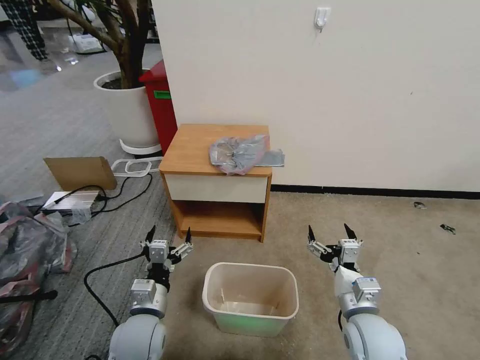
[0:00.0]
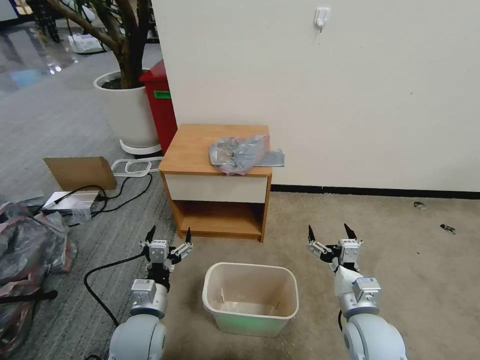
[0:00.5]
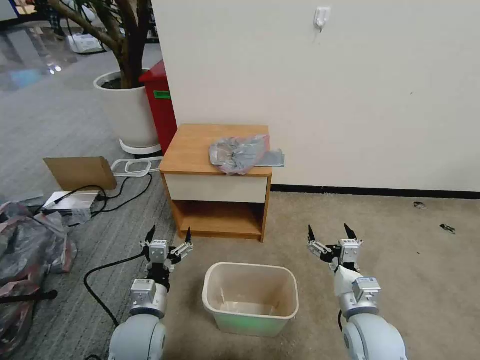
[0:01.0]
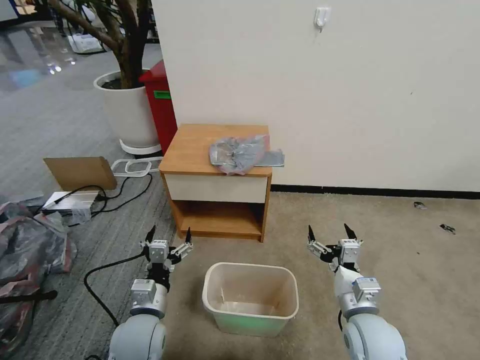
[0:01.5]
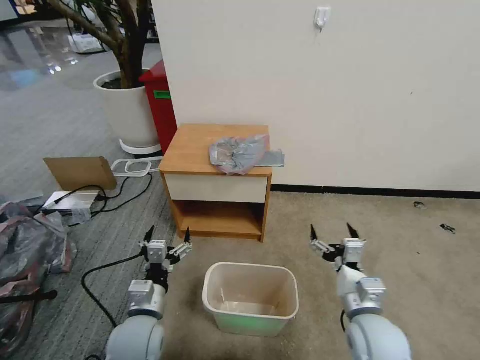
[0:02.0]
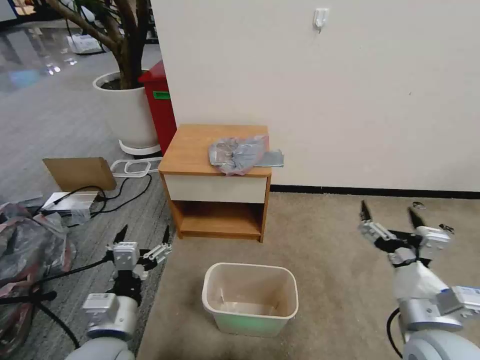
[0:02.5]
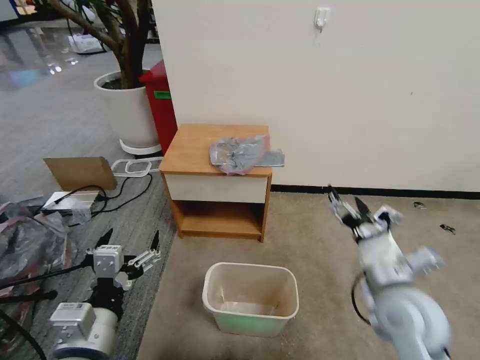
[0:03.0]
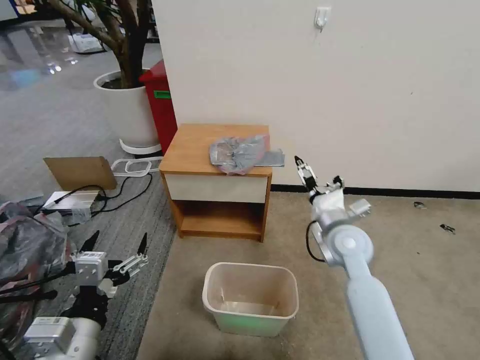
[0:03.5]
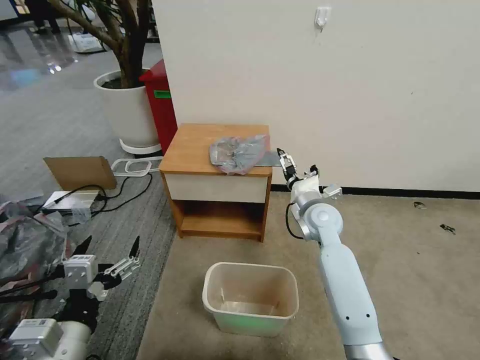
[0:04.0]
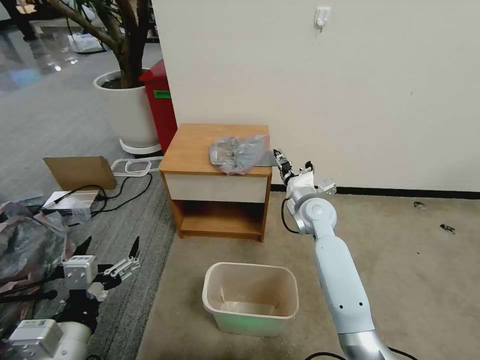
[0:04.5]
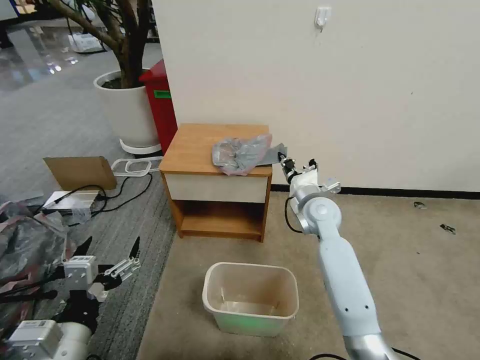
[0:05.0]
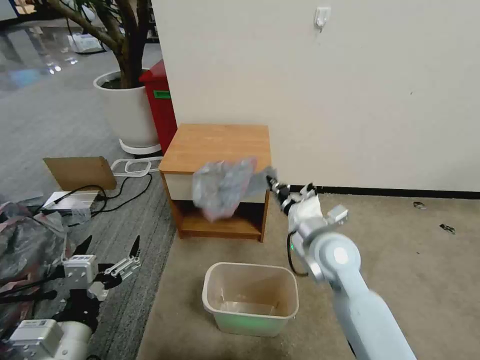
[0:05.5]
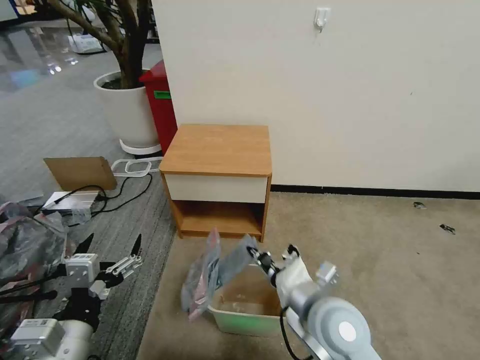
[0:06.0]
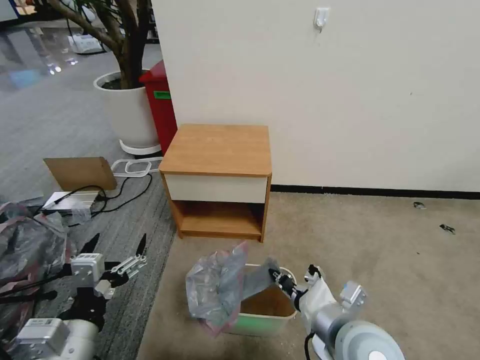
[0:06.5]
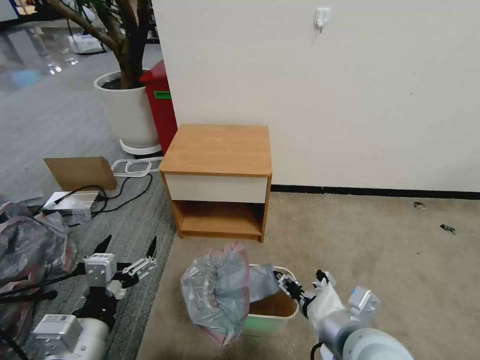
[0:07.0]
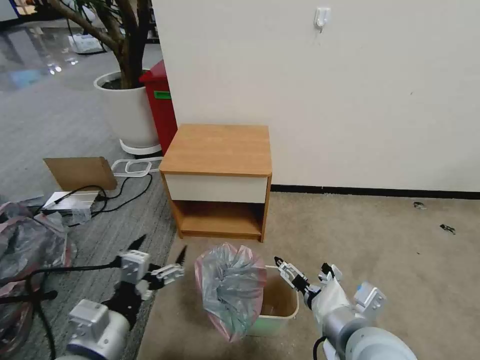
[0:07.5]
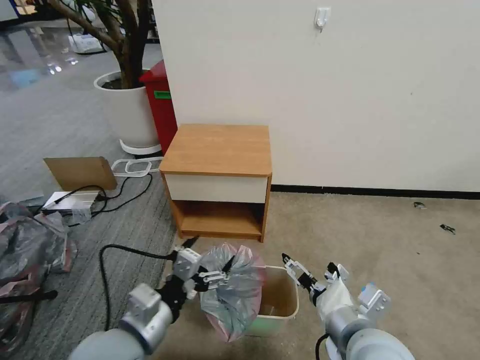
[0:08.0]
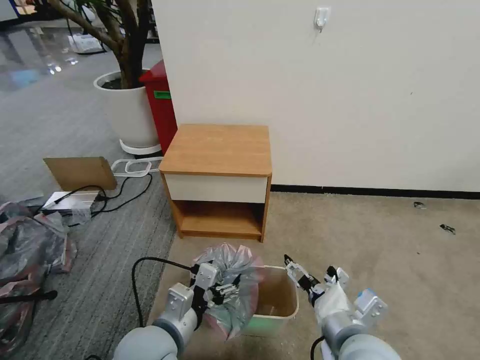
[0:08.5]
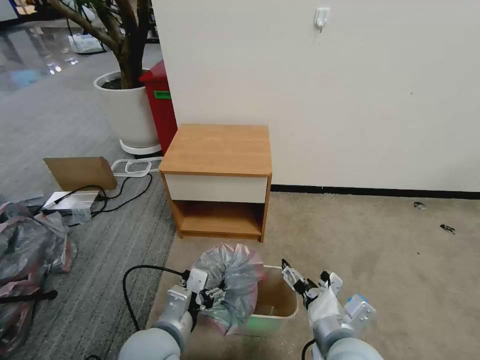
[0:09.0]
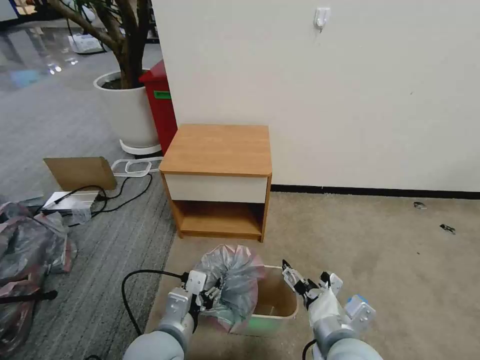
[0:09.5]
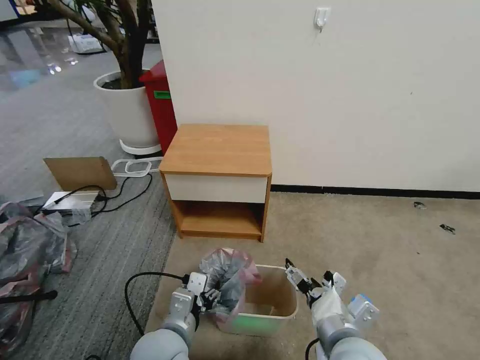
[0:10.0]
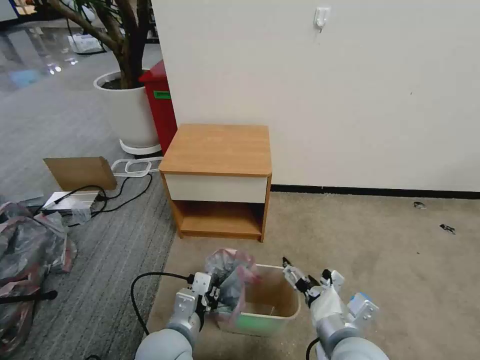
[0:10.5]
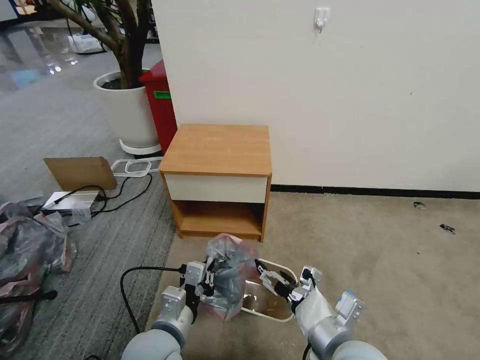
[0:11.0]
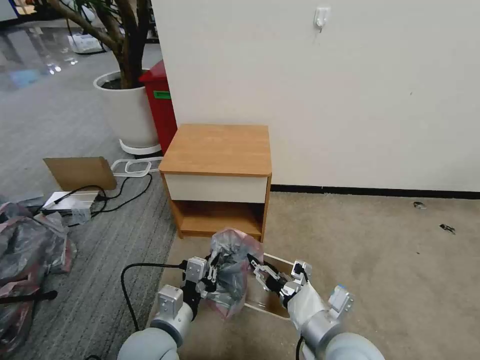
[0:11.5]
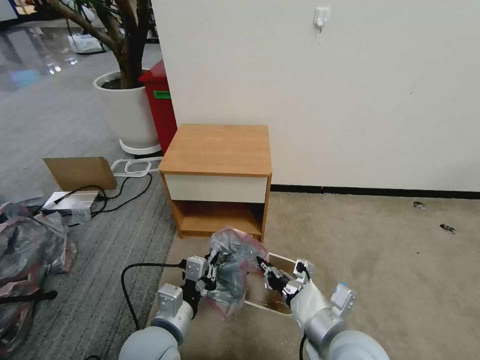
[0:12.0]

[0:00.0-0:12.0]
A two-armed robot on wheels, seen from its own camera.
Task of the whole recording: Pick up the garbage bag from the table and place it over the trash can.
0:02.0 to 0:04.0: The left gripper moves upward, backward and to the left, about 20 cm. The right gripper heads forward, covering about 25 cm.
0:04.0 to 0:06.0: The right gripper travels backward by some 25 cm, and closes up.
0:06.0 to 0:08.0: The right gripper is displaced backward by roughly 5 cm, and opens its fingers. The left gripper travels to the right and forward by roughly 10 cm.
0:08.0 to 0:10.0: The left gripper shifts roughly 10 cm downward and to the right.
0:10.0 to 0:12.0: The right gripper closes up. Meanwhile the left gripper closes.

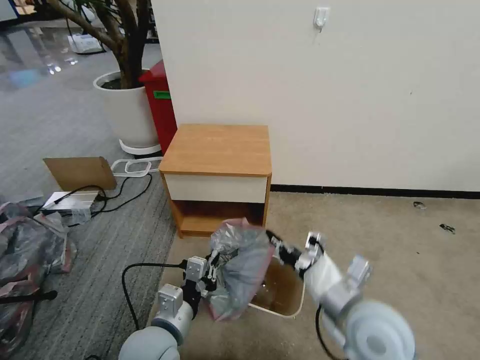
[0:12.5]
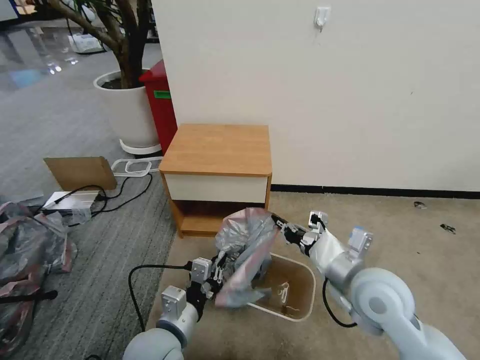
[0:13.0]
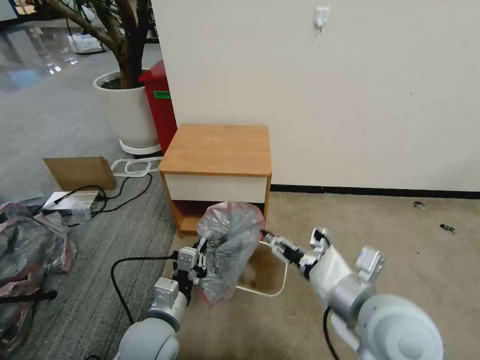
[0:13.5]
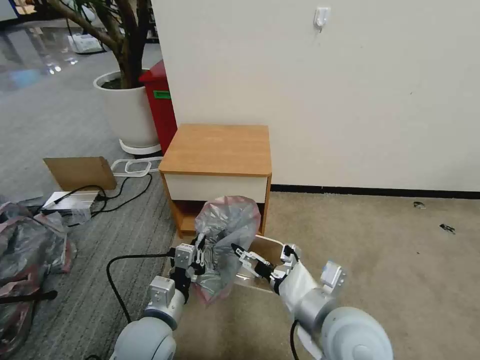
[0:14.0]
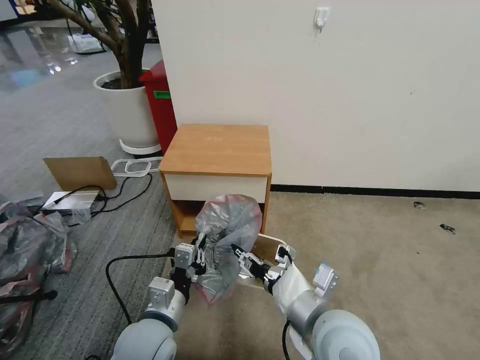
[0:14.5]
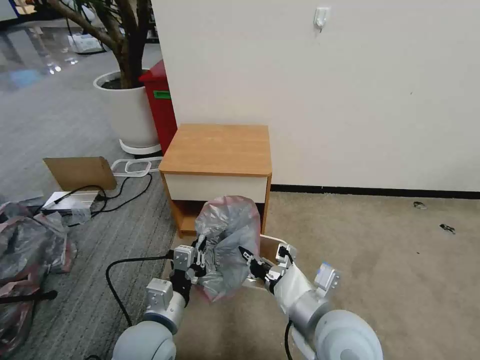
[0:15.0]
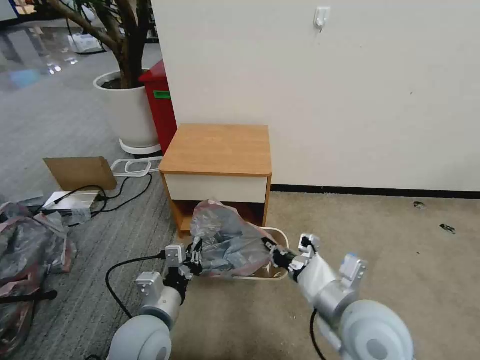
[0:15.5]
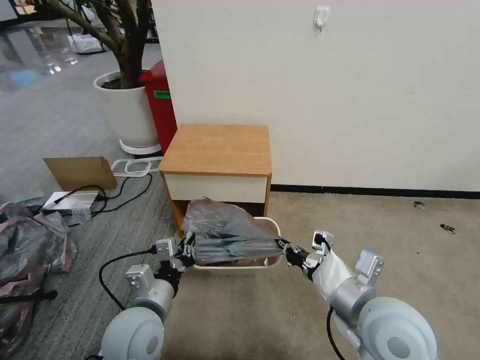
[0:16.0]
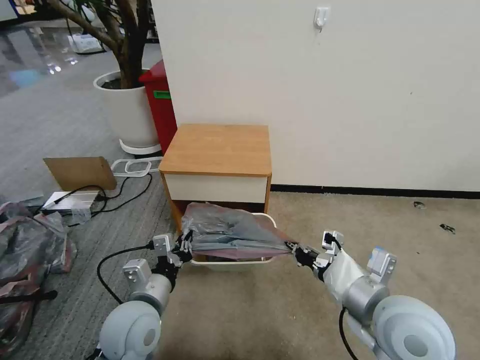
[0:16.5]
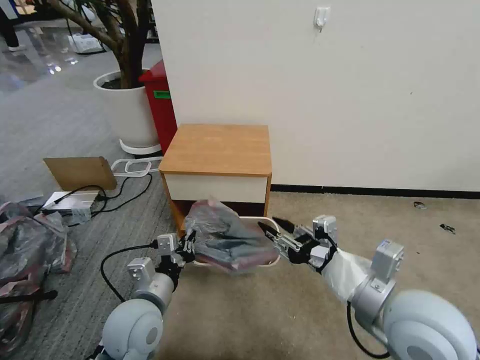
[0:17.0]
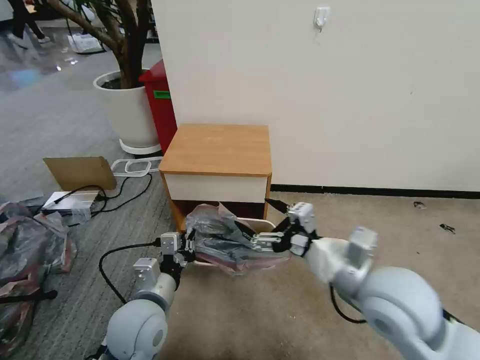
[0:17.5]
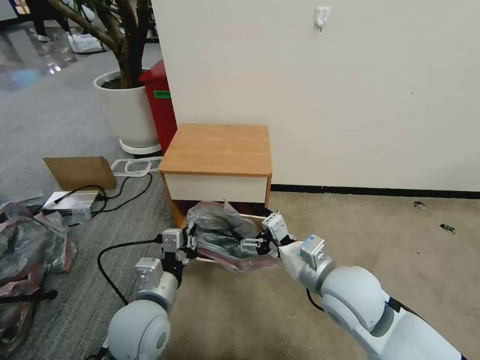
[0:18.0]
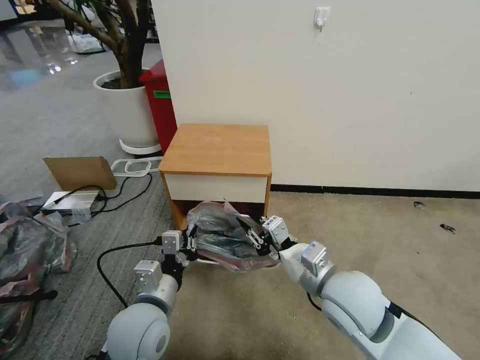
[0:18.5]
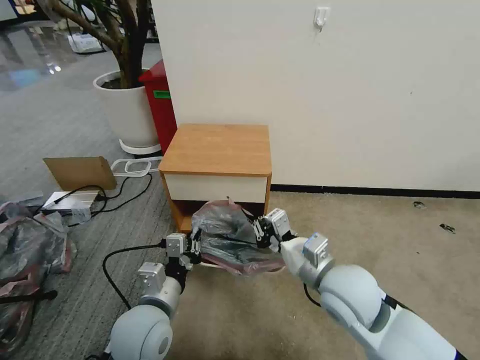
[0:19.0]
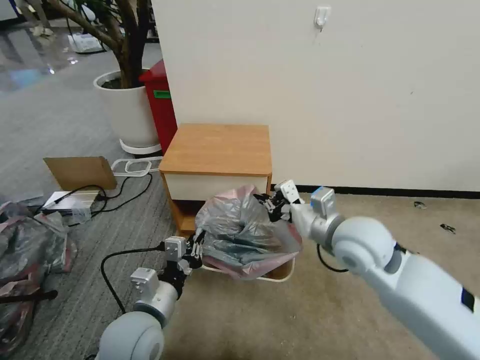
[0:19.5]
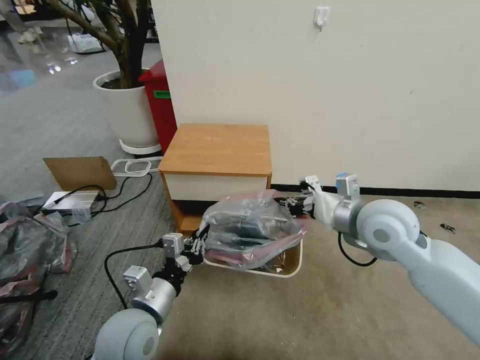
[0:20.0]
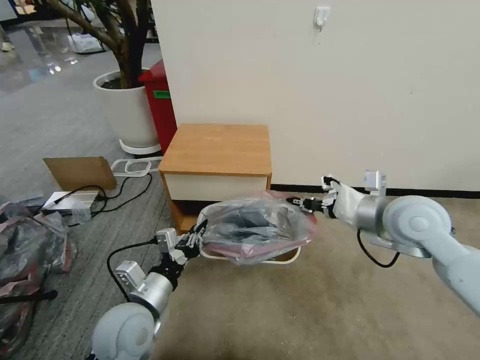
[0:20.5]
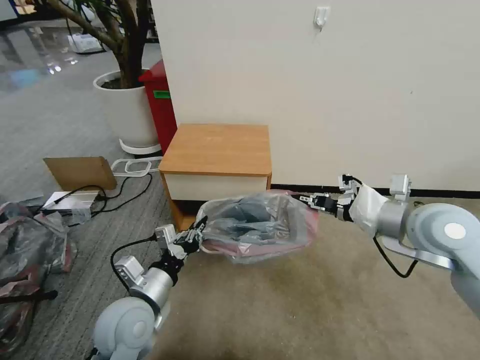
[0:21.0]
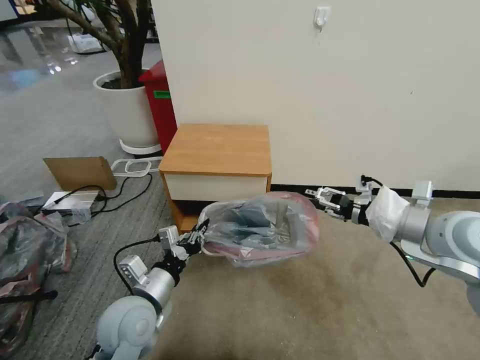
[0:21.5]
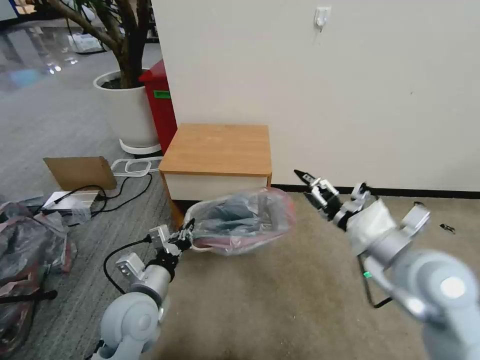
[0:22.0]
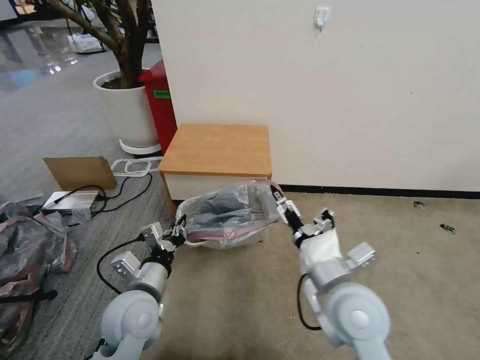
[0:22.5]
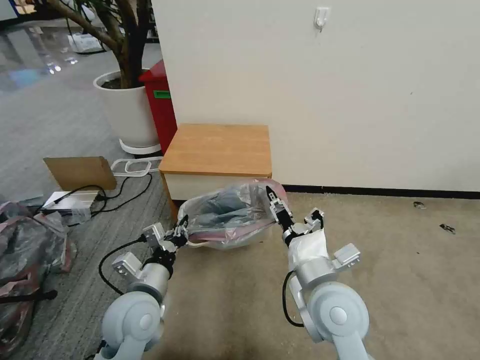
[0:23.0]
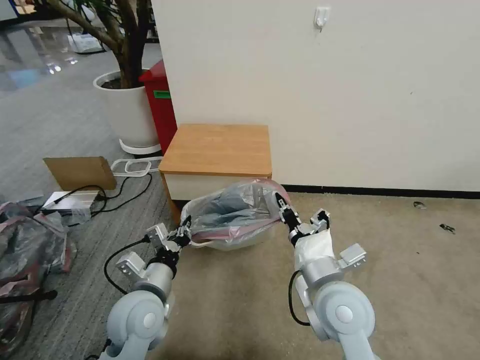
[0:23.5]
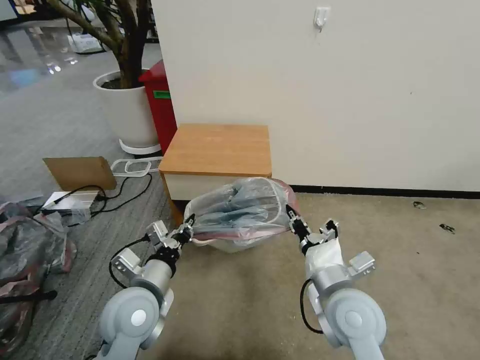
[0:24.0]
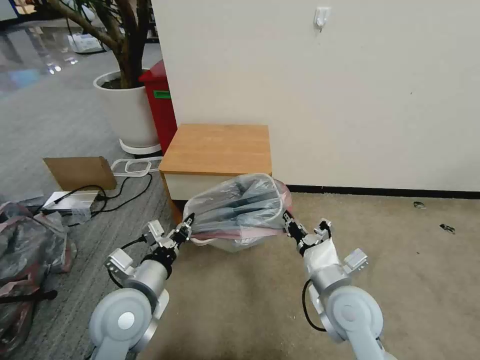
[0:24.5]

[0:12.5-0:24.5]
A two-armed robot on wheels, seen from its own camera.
Task of the whole recording: Pick up the garbage bag from the table and place it over the trash can.
0:12.5 to 0:14.5: The right gripper heads to the left, covering about 5 cm, and opens its fingers.
0:14.5 to 0:16.5: The right gripper moves to the right, some 10 cm, and closes up.
0:16.5 to 0:18.5: The right gripper heads to the left and forward, covering some 10 cm, and opens its fingers.
0:18.5 to 0:20.5: The right gripper moves to the right, forward and upward, roughly 20 cm, and closes.
0:20.5 to 0:22.5: The right gripper shifts roughly 20 cm to the left, backward and downward, and opens its fingers.
0:22.5 to 0:24.5: The right gripper goes about 5 cm downward, and closes its fingers.

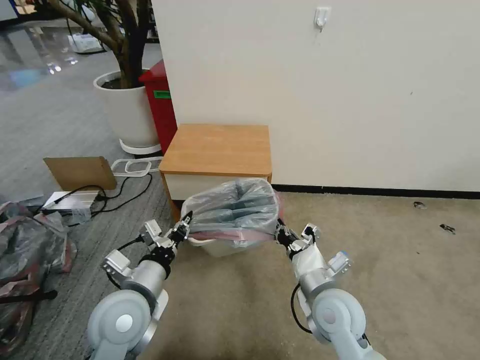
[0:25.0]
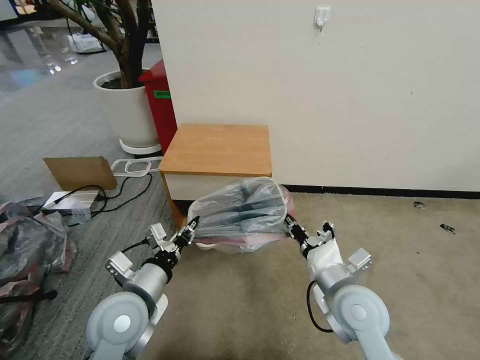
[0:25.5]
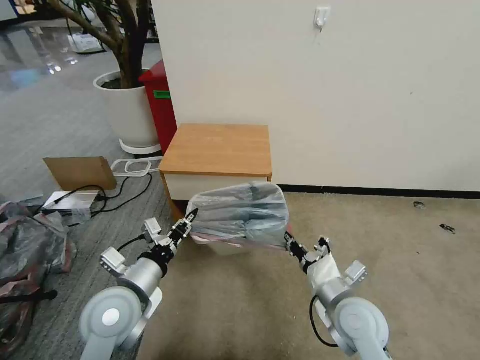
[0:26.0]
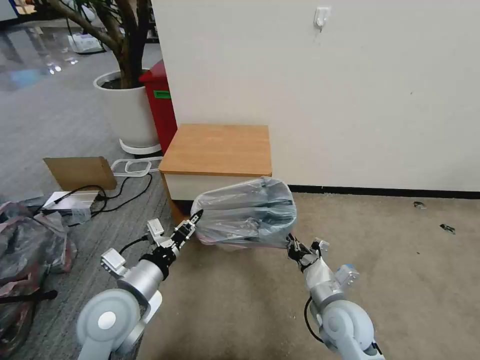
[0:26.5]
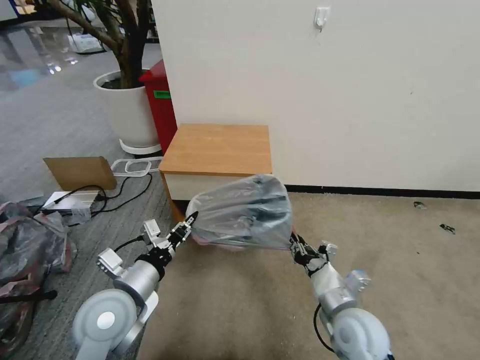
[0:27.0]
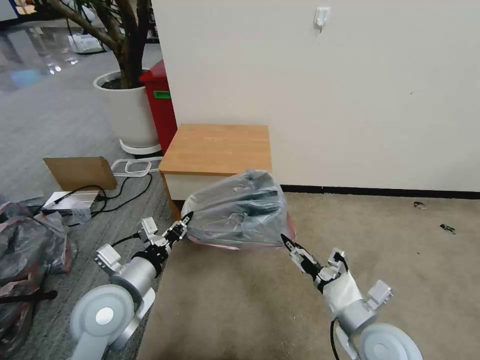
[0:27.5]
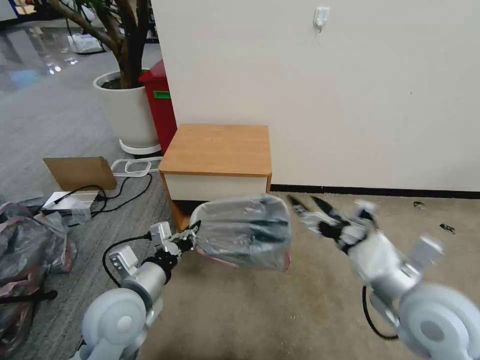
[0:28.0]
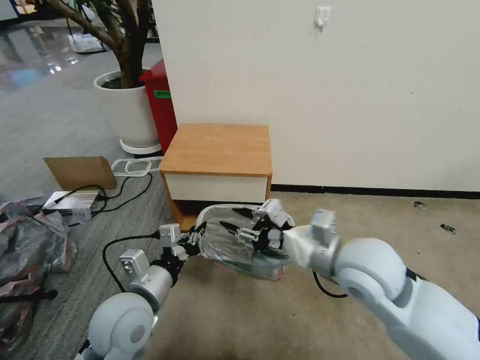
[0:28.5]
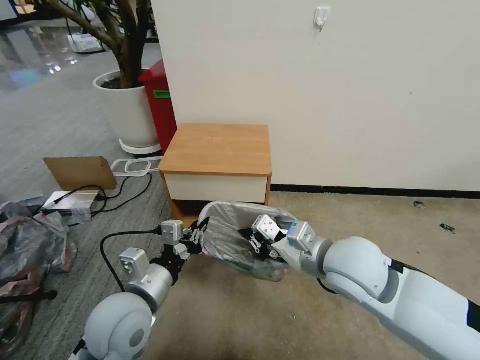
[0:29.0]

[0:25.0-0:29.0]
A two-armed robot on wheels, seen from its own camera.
Task of the whole recording: Pick up the garbage bag from the table and place it over the trash can.
0:25.0 to 0:27.0: The right gripper shifts by roughly 5 cm.
0:27.0 to 0:29.0: The right gripper moves upward, approximately 15 cm, and opens and closes again.
